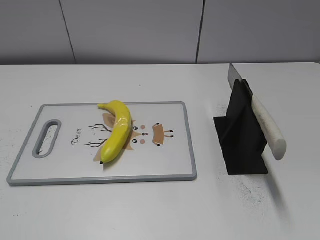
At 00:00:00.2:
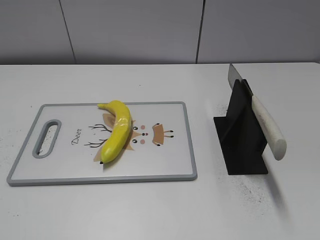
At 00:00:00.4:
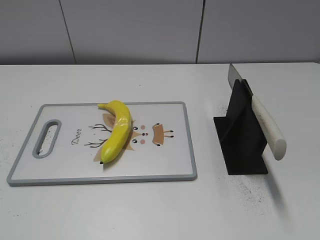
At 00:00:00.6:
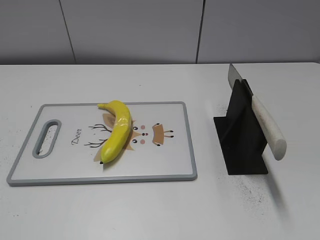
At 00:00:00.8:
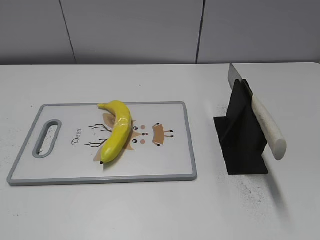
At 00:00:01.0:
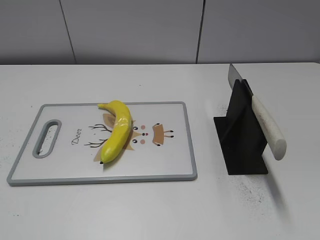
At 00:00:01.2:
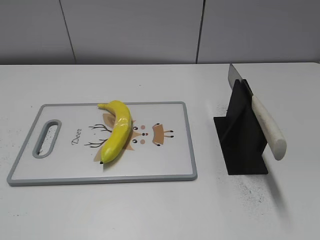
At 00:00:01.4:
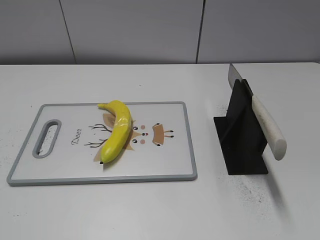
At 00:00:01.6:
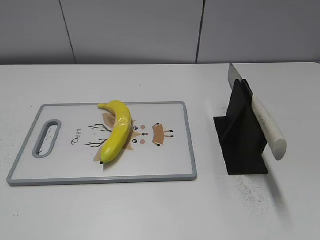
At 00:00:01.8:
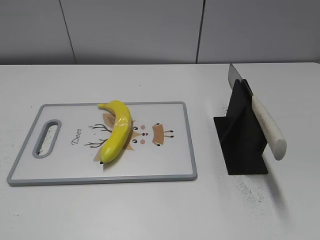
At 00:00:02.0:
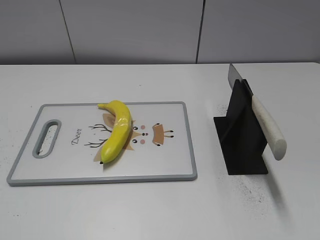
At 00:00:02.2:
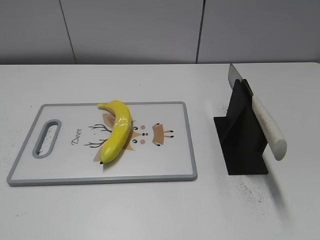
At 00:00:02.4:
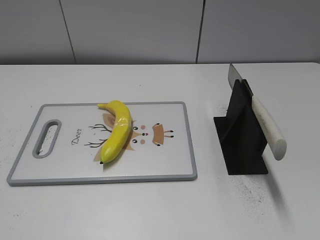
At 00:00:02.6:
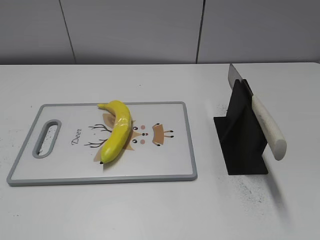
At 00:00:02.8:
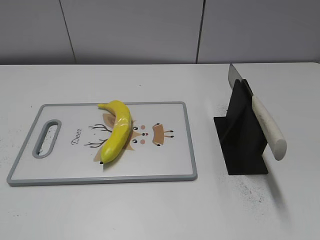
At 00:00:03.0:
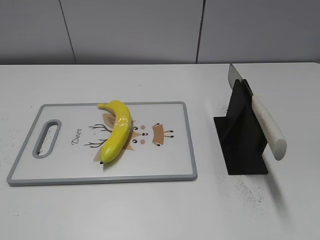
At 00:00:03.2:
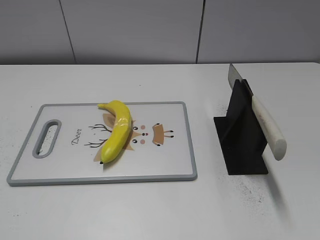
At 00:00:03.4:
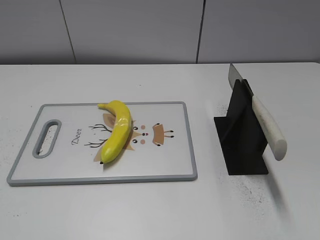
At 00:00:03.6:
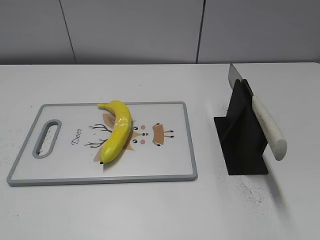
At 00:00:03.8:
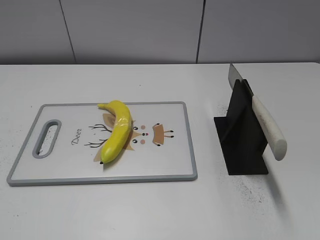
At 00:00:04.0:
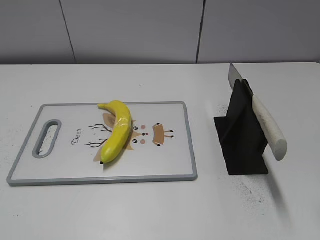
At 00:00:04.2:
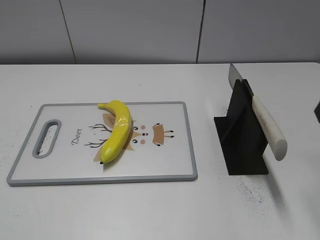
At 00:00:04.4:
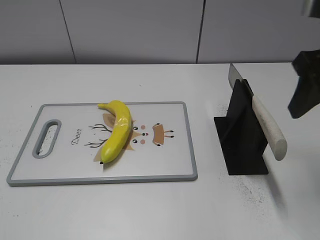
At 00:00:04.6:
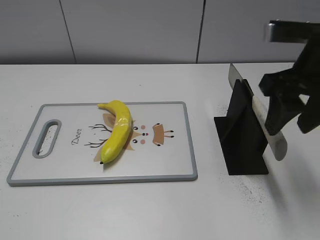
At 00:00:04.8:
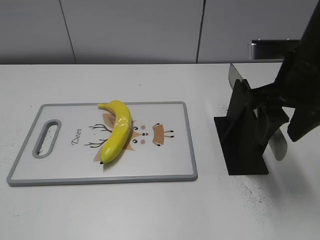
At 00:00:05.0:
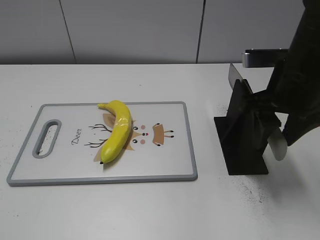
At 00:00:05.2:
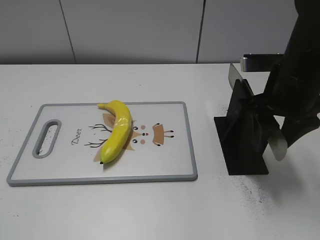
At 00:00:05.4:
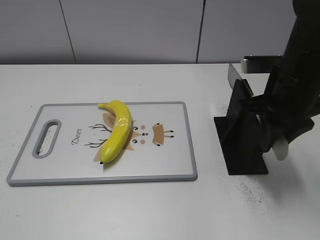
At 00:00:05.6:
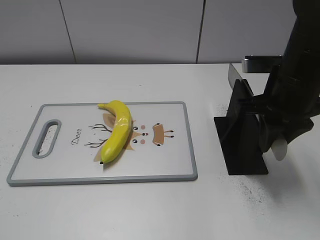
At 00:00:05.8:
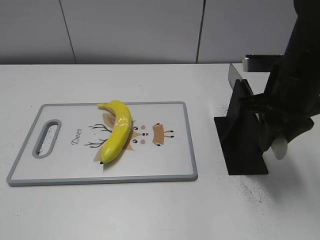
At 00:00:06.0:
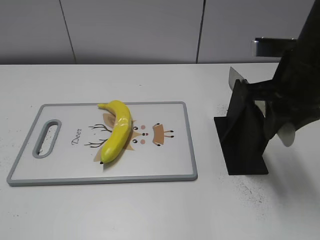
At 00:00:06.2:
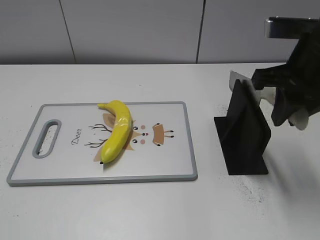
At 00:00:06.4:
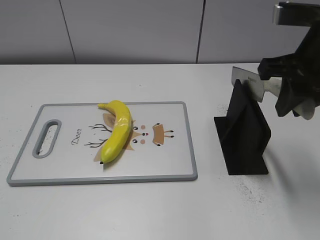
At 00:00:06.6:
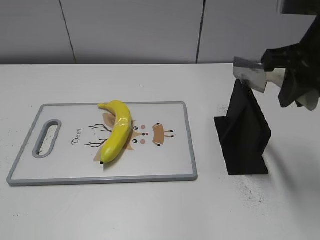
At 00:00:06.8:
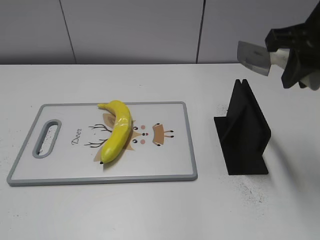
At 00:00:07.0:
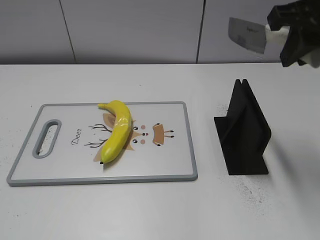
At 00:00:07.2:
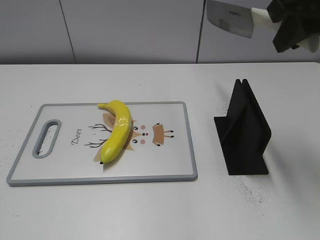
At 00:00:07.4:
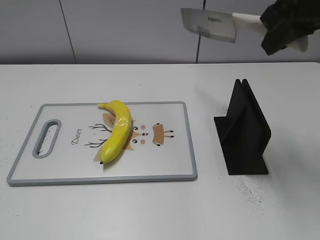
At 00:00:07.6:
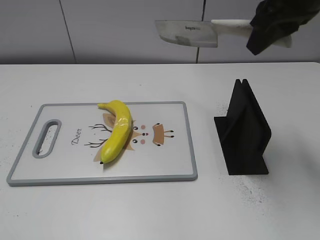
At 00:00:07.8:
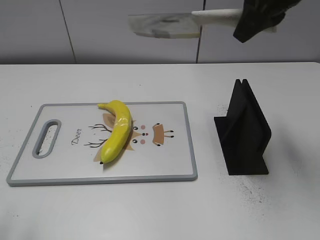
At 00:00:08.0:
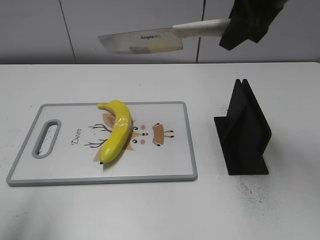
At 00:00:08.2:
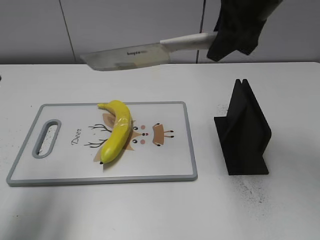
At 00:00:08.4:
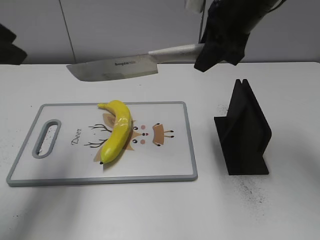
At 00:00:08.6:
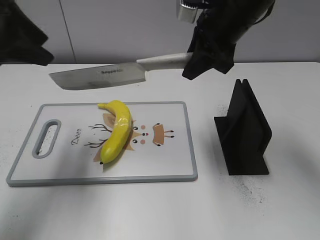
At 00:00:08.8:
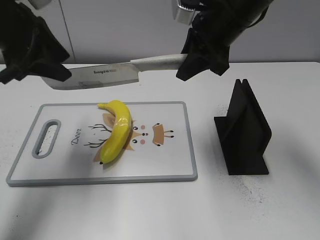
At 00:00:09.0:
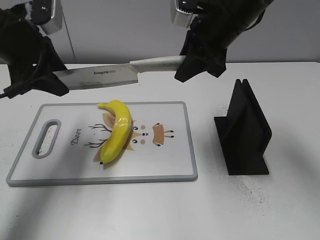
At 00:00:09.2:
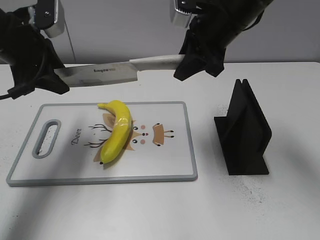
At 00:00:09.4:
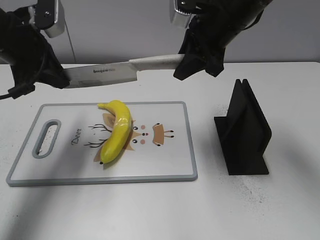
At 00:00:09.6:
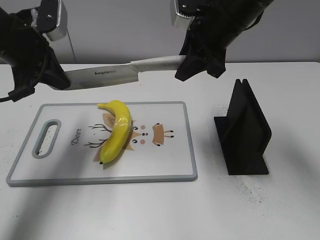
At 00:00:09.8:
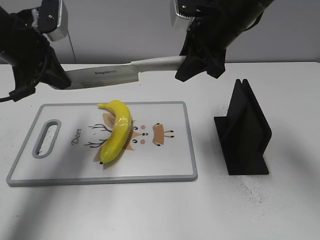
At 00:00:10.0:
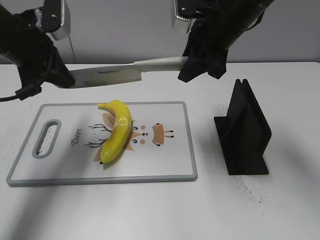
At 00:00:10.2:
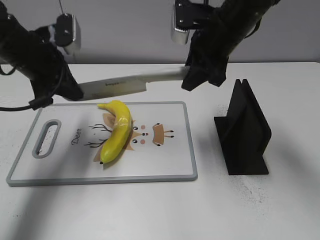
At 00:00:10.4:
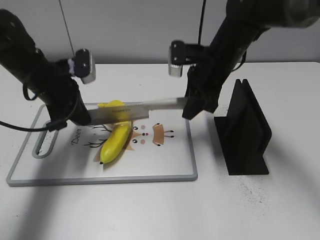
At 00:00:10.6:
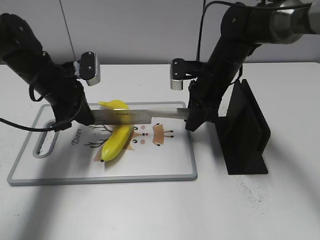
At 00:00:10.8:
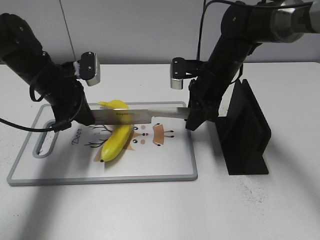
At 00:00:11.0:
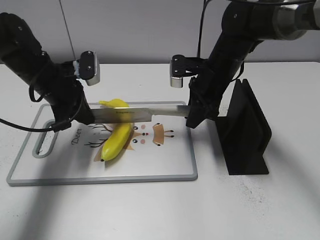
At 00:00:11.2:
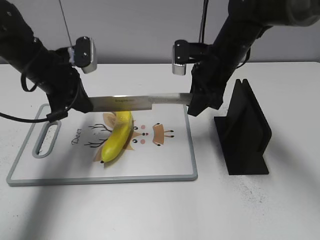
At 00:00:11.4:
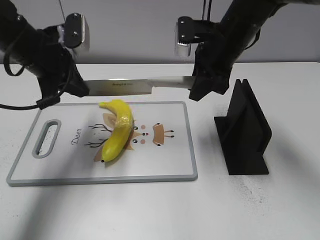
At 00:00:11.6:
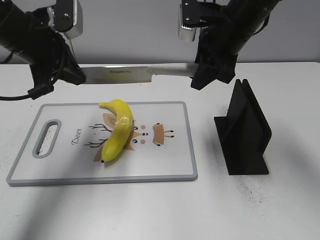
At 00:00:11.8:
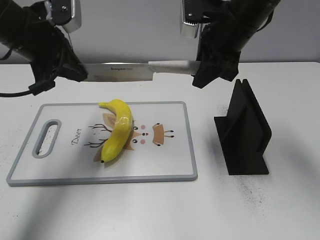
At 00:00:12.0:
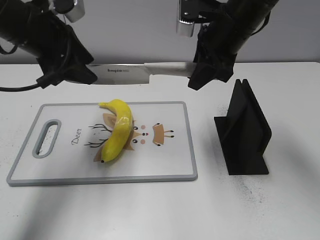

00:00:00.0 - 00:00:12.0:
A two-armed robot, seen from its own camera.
Task of the whole recording: cut plastic banana.
Step, 00:00:00.0 - 00:00:06.8: Grab the knife handle with your right hand.
Step, 00:00:07.0 - 00:00:11.8: Lift the knife with your right hand.
00:00:03.0 - 00:00:04.4: The right gripper moves forward, some 20 cm.
00:00:04.4 - 00:00:06.0: The right gripper is displaced downward by about 5 cm, and closes.
00:00:06.0 - 00:00:07.6: The right gripper shifts roughly 10 cm upward.
00:00:07.6 - 00:00:09.0: The left gripper moves forward, roughly 30 cm. Meanwhile the right gripper travels downward, forward and to the left by some 10 cm.
00:00:09.0 - 00:00:10.4: The two grippers go about 10 cm downward. The left gripper closes up.
00:00:10.4 - 00:00:12.0: Both grippers move upward, about 10 cm. The left gripper opens up.

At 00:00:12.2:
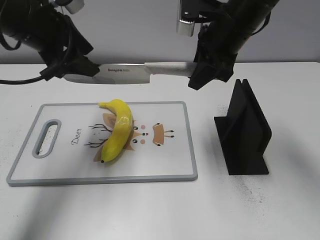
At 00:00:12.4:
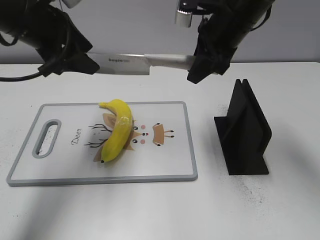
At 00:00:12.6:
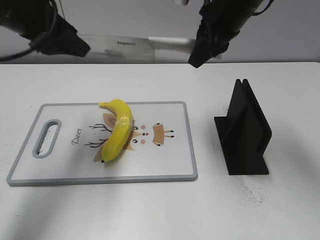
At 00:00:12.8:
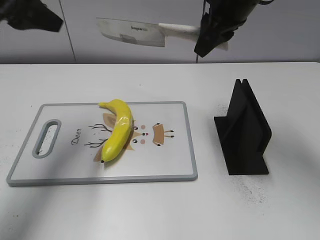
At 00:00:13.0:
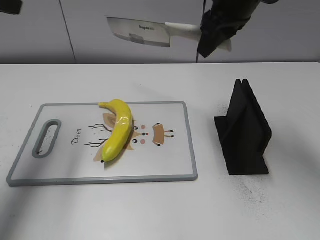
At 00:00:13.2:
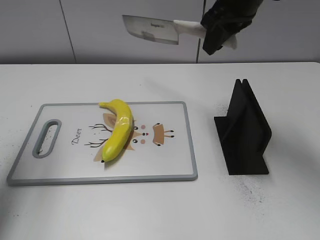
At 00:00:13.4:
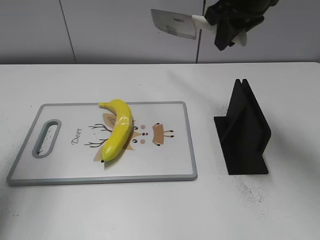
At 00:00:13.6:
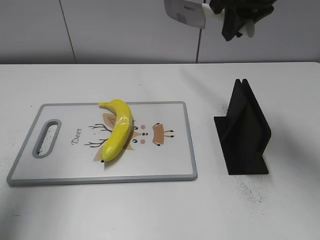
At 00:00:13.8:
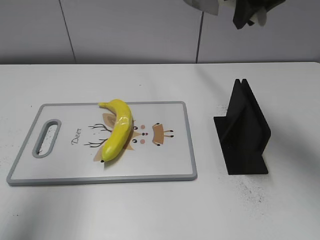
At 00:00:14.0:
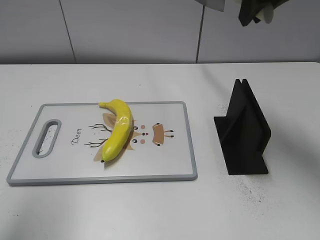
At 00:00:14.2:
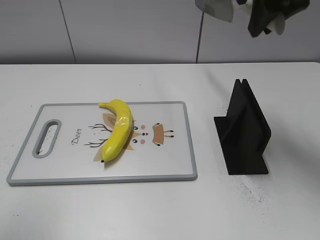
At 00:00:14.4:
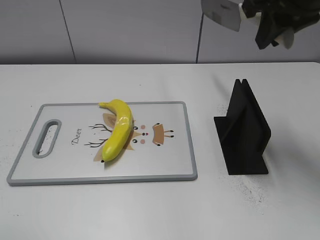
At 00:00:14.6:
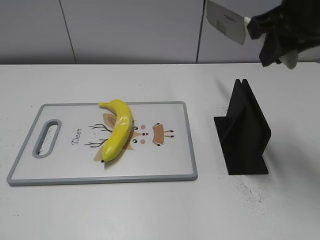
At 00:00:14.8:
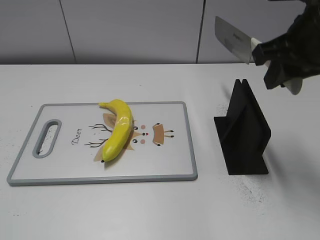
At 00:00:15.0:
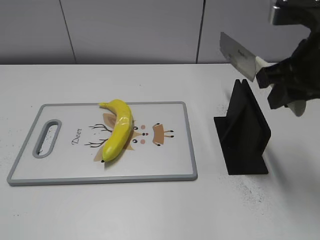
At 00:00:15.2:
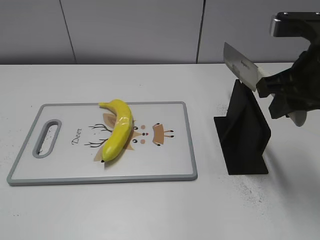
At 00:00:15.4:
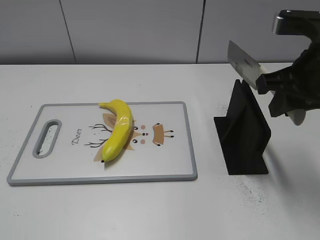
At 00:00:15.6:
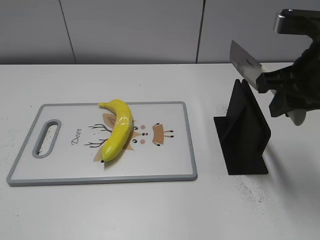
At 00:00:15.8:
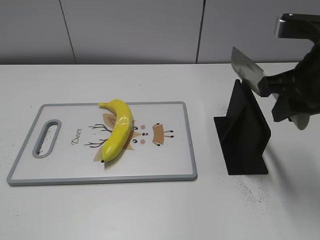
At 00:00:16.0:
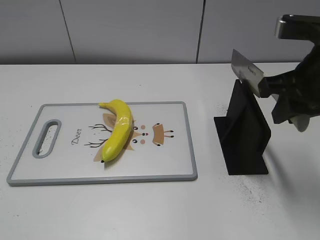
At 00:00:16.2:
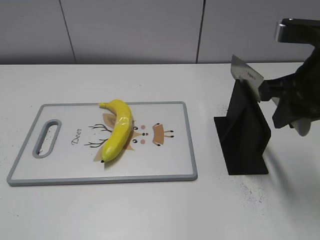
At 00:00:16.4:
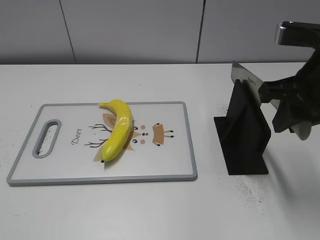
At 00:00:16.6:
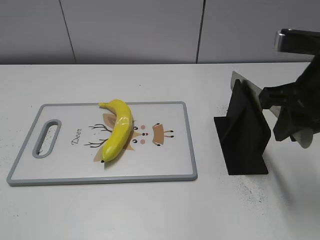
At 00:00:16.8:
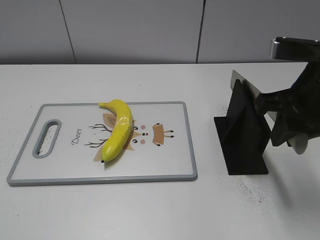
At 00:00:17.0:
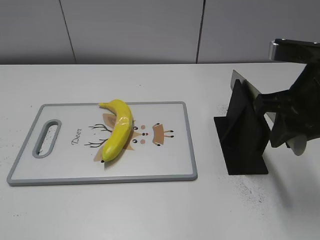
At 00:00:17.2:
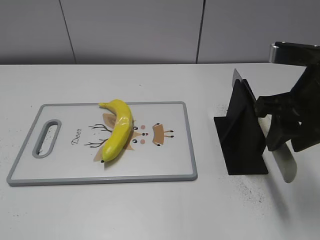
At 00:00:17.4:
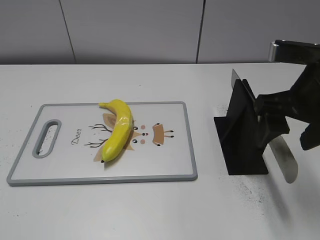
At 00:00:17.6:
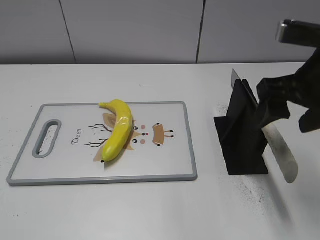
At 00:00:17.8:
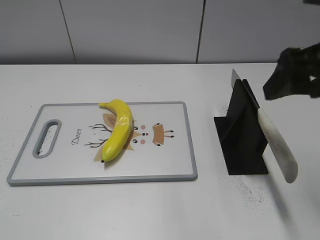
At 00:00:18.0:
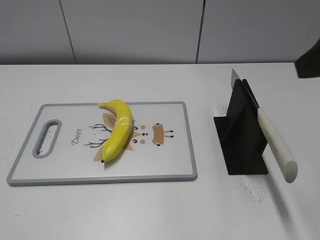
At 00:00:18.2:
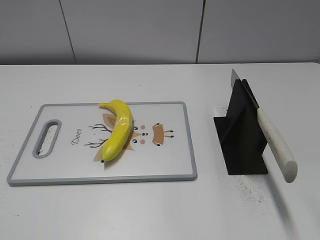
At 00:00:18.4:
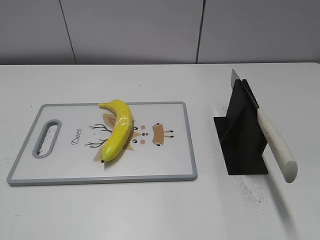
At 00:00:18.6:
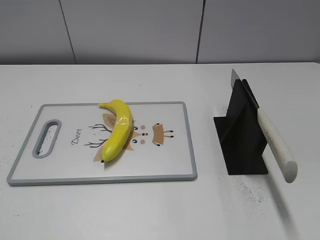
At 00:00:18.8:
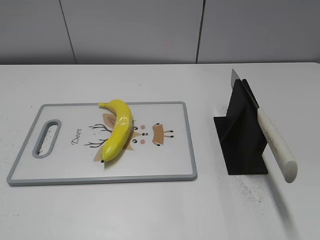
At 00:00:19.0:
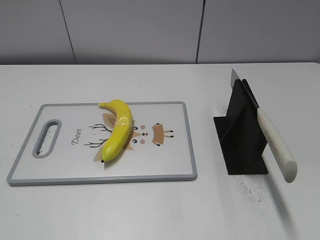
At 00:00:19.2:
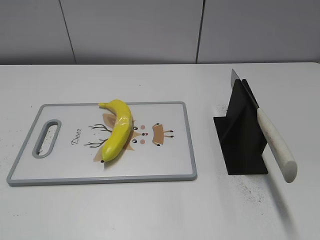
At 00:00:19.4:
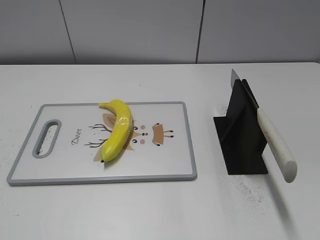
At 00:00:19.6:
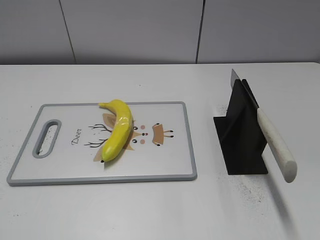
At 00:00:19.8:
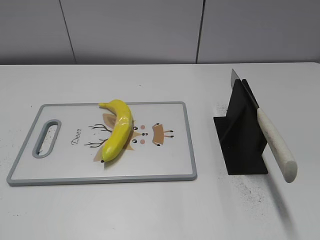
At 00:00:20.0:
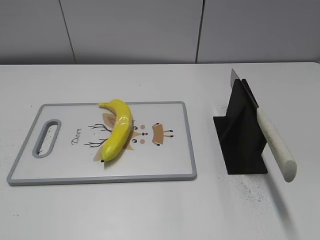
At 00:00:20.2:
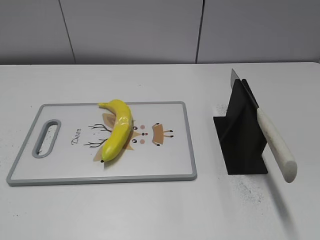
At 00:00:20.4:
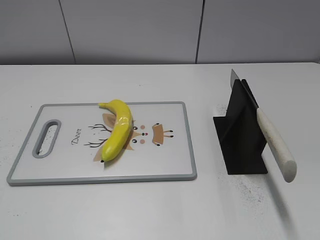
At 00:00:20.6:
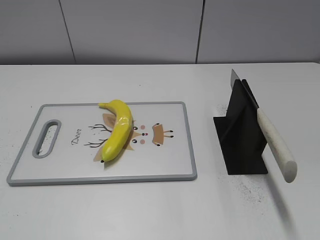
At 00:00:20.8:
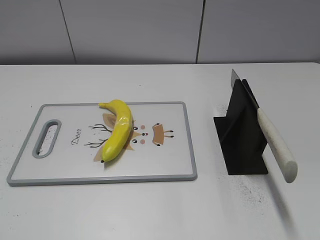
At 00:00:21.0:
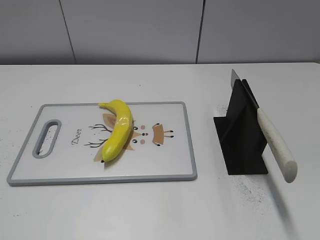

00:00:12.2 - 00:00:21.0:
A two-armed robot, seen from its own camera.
Task of the whole recording: cut plastic banana.
Step, 00:00:12.2 - 00:00:13.2: Cut the banana with your left hand.
Step, 00:00:13.4 - 00:00:14.4: Lift the knife with your right hand.
Step, 00:00:14.8 - 00:00:21.0: Place the knife on the storage rack with your right hand.
00:00:12.2 - 00:00:13.6: The right gripper shifts some 5 cm upward; the left gripper goes some 15 cm to the left, backward and upward.
00:00:13.6 - 00:00:15.2: The right gripper travels backward, downward and to the right by about 15 cm. Meanwhile the left gripper travels backward by approximately 25 cm.
00:00:15.2 - 00:00:16.6: The grippers stay close to where they were, moving slightly.
00:00:16.6 - 00:00:18.0: The right gripper shifts roughly 10 cm upward, and opens up.
00:00:18.0 - 00:00:19.6: The right gripper heads backward and to the right, covering roughly 20 cm.
